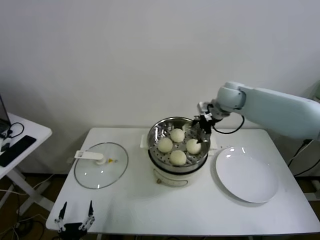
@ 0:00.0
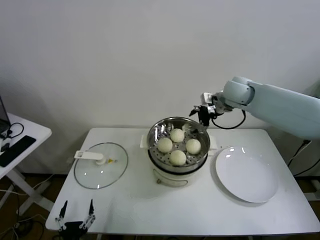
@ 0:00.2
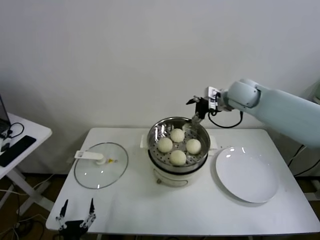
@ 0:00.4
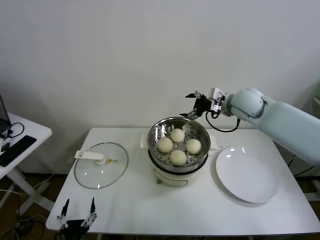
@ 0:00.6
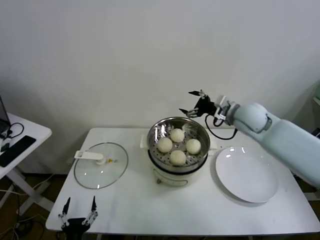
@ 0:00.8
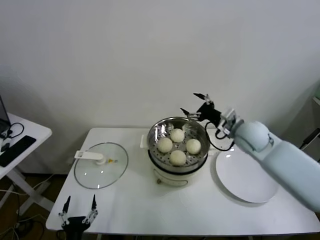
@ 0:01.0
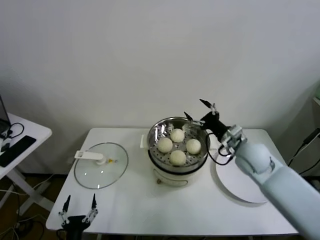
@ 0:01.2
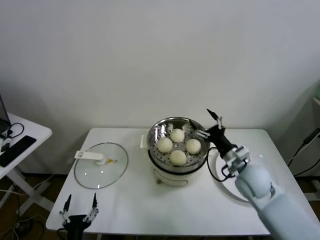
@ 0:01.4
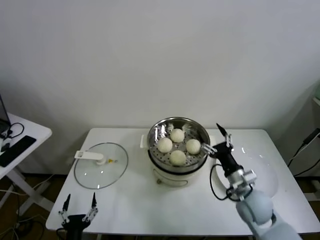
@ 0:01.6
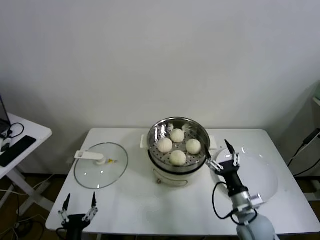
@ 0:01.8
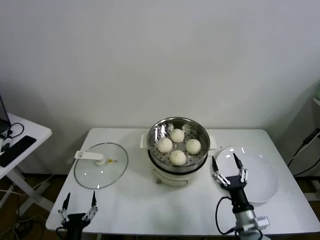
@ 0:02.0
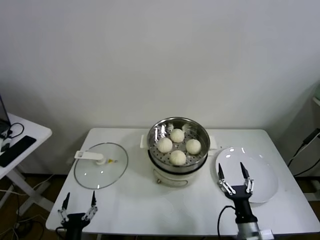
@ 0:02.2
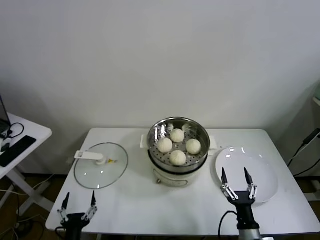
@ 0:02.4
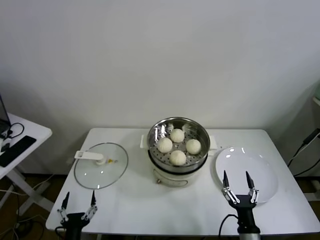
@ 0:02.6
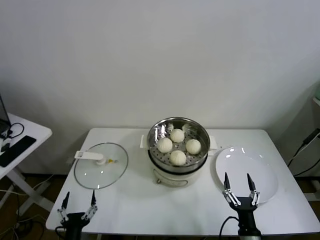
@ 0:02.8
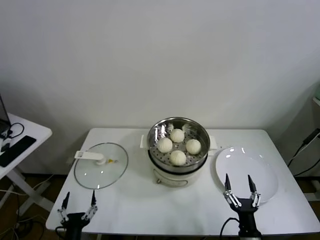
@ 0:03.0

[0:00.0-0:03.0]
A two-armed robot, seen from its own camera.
Task of the whole recording: take steamed baozi put them in steamer.
0:00.0 to 0:01.6: The right gripper travels backward and downward by approximately 30 cm.
0:01.6 to 0:03.0: The right gripper travels backward and downward by roughly 20 cm.
